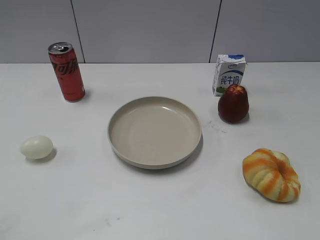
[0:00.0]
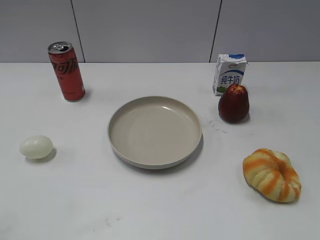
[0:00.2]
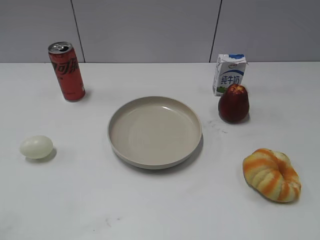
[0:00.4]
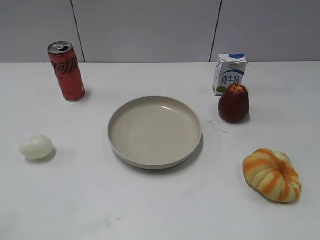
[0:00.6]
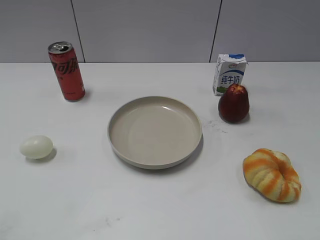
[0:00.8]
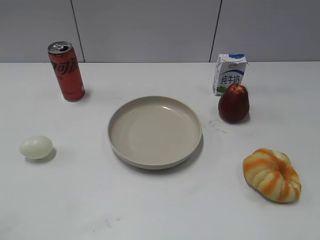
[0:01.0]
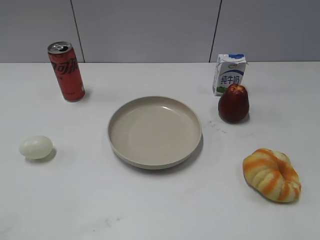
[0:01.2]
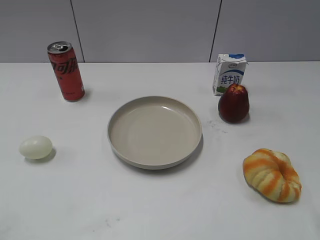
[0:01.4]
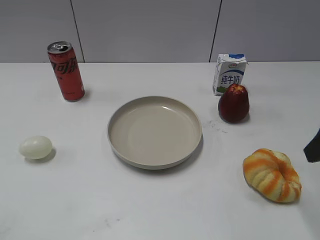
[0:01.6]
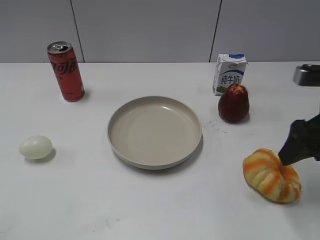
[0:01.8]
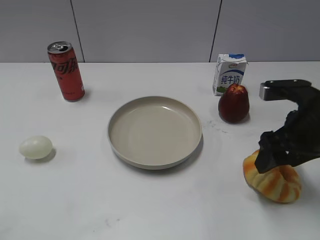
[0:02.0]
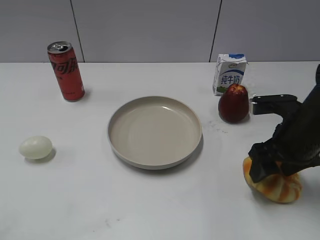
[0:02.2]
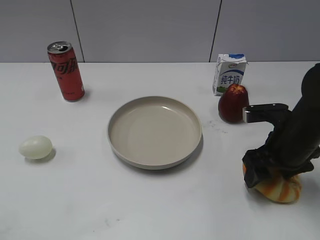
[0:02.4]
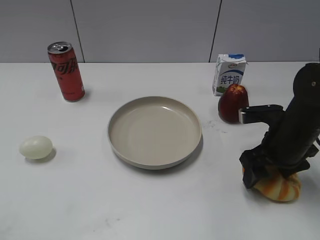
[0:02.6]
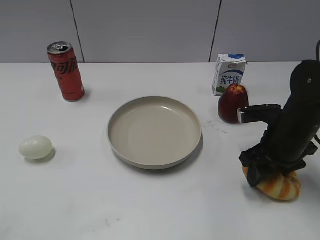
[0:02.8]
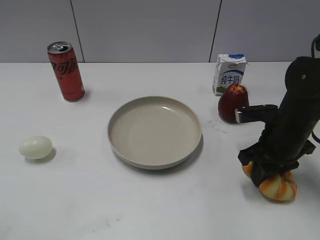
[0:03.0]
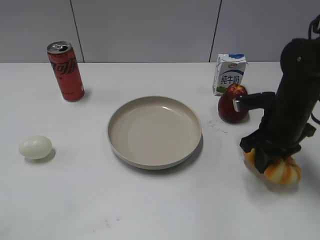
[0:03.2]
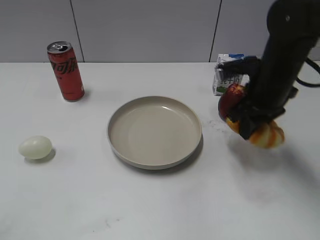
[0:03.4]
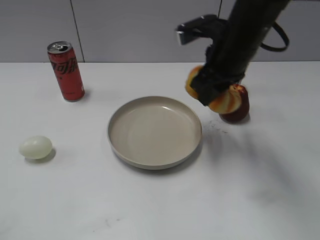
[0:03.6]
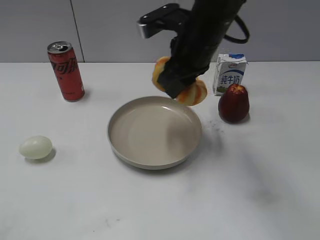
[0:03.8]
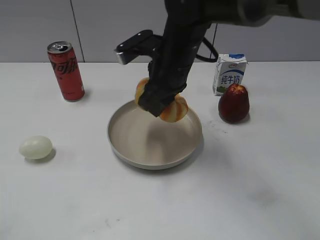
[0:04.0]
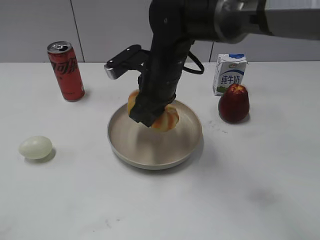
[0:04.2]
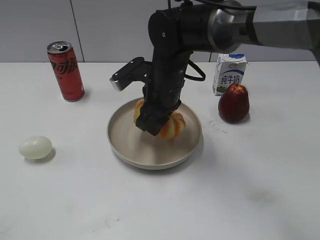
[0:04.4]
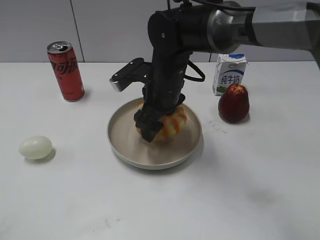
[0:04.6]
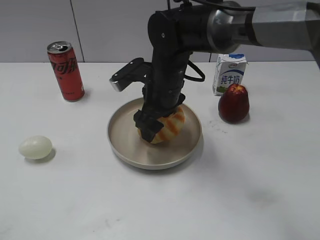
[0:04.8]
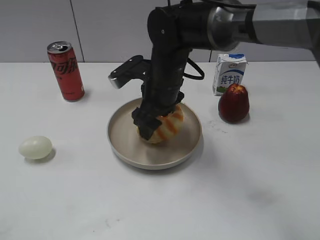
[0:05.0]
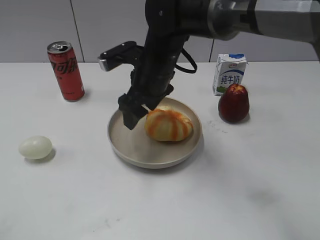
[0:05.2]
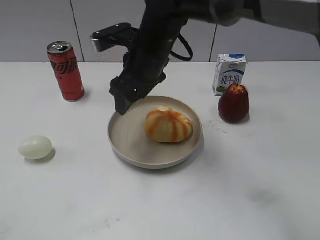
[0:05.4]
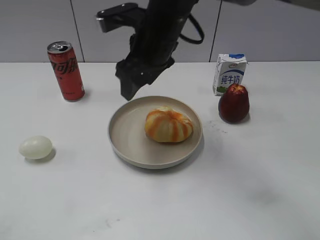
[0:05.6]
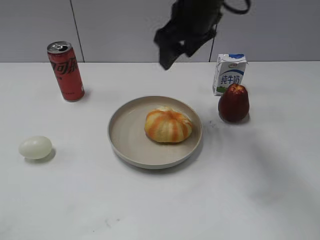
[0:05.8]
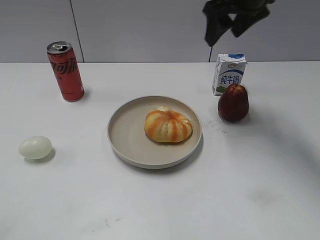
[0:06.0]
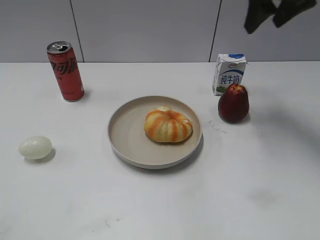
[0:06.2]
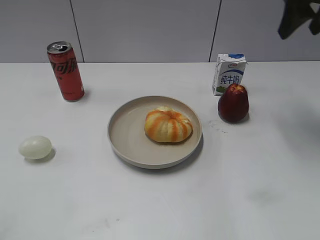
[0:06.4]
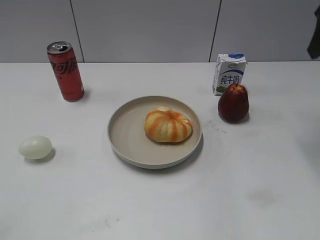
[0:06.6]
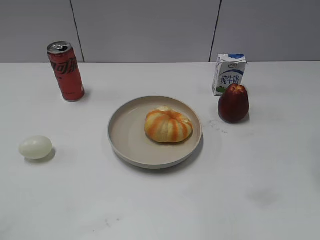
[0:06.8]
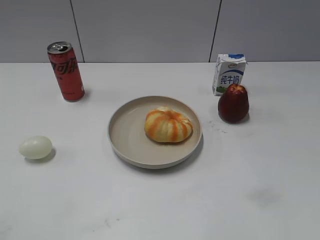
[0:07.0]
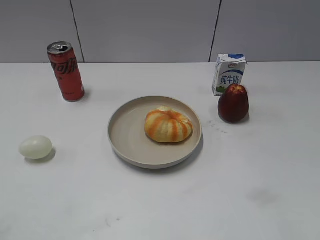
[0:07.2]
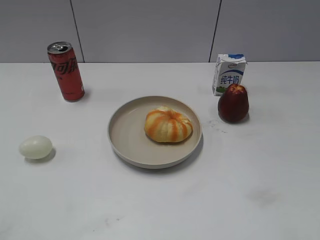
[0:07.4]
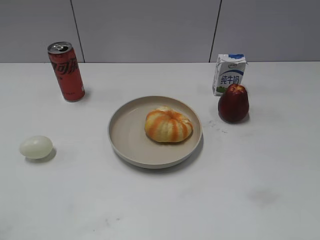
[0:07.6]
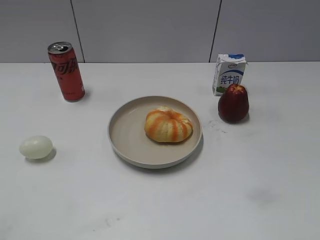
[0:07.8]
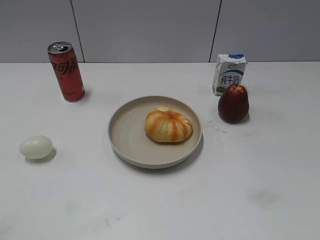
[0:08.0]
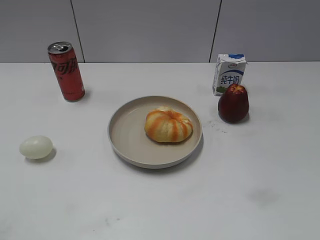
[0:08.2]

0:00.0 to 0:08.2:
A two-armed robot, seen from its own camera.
Step, 0:00.0 to 0:03.0: Grasp the round bread with right gripper.
Step, 0:03.2 to 0:05.2: Place the round bread on the plate with right gripper.
0:01.6 to 0:03.2: The right gripper goes approximately 15 cm downward, forward and to the left, and closes up.
0:03.2 to 0:05.0: The right gripper heads to the left, covering about 20 cm, and opens.
0:05.0 to 0:06.6: The right gripper shifts roughly 35 cm to the right and upward.
0:06.6 to 0:08.2: The right gripper is displaced backward by approximately 35 cm.
